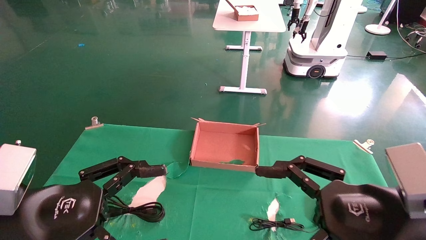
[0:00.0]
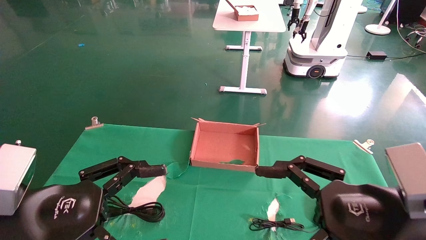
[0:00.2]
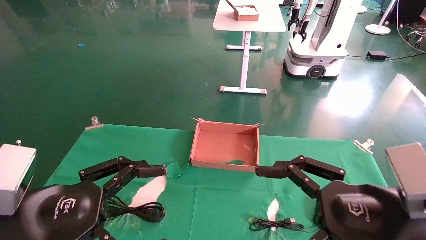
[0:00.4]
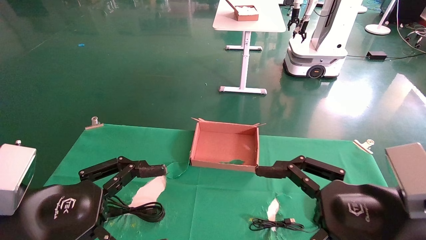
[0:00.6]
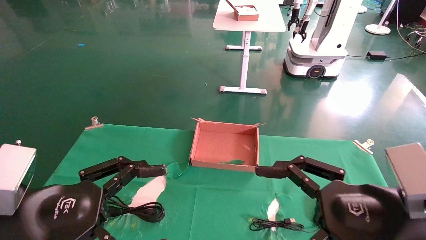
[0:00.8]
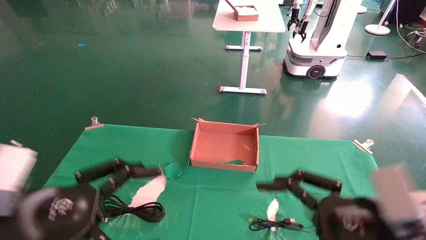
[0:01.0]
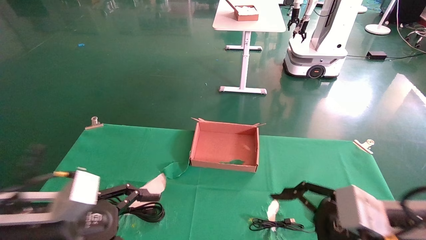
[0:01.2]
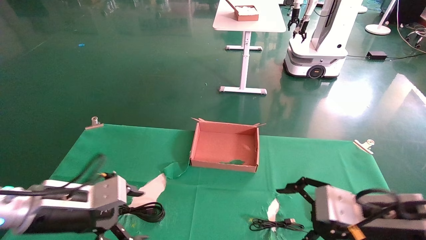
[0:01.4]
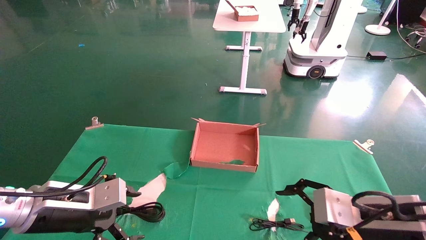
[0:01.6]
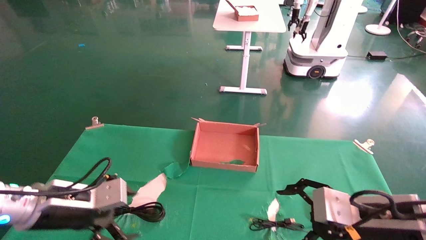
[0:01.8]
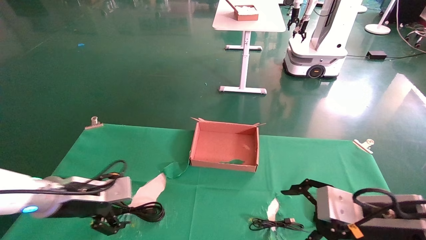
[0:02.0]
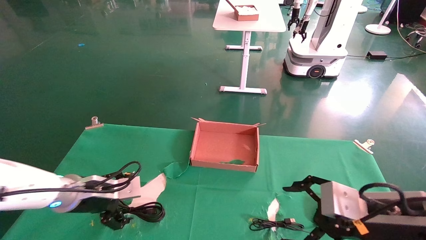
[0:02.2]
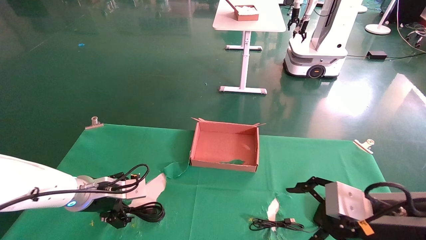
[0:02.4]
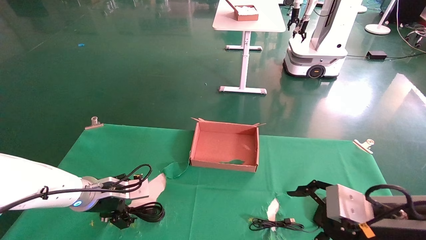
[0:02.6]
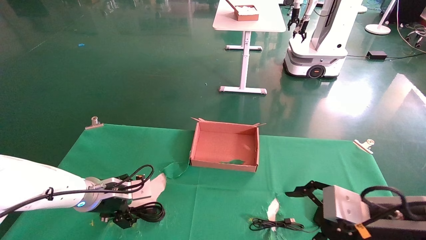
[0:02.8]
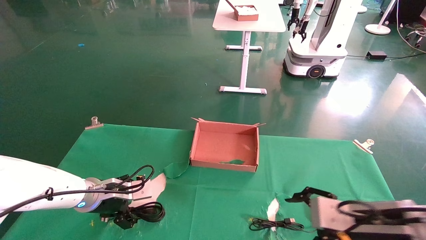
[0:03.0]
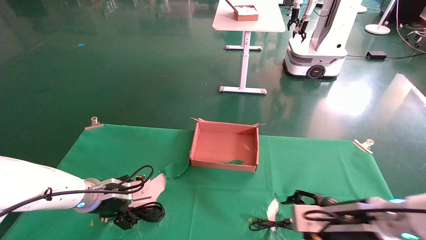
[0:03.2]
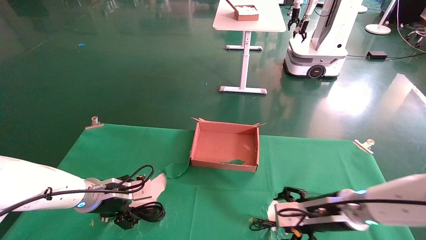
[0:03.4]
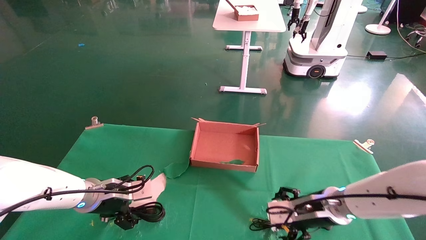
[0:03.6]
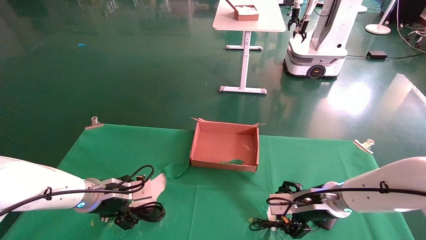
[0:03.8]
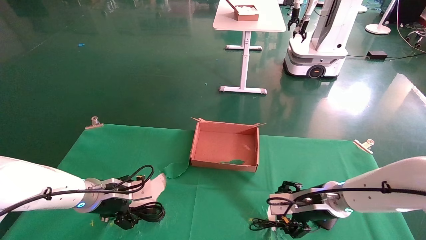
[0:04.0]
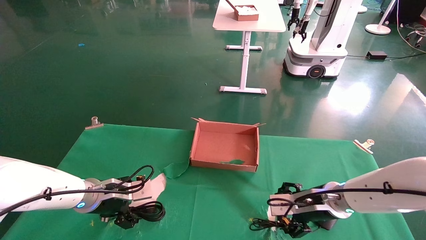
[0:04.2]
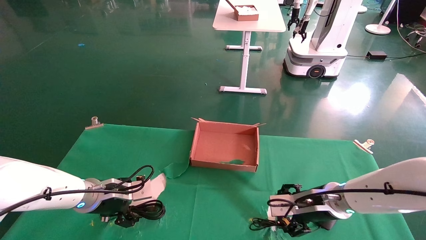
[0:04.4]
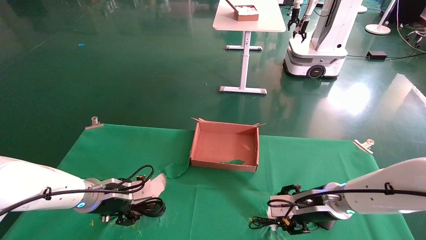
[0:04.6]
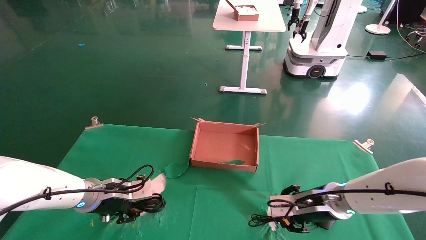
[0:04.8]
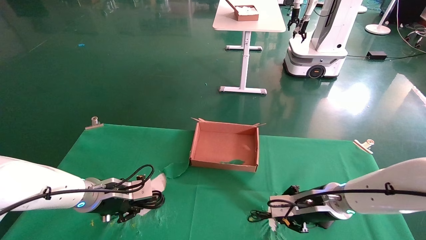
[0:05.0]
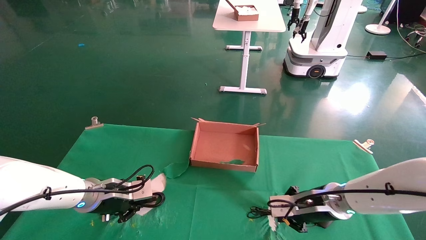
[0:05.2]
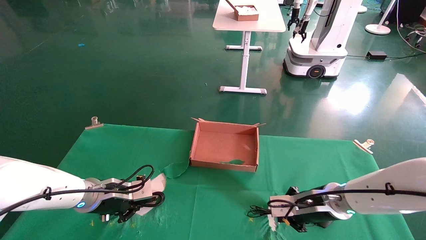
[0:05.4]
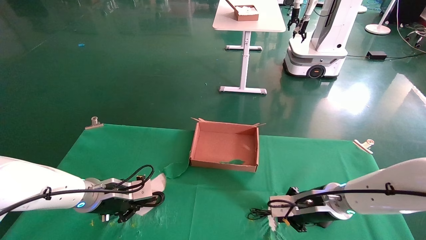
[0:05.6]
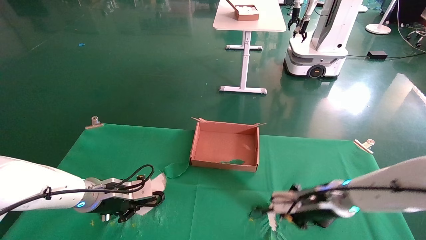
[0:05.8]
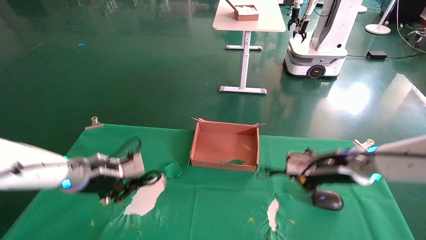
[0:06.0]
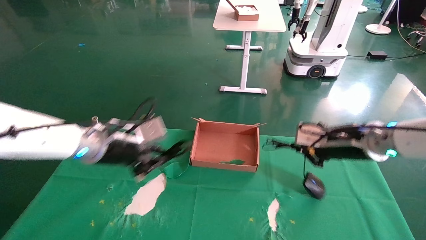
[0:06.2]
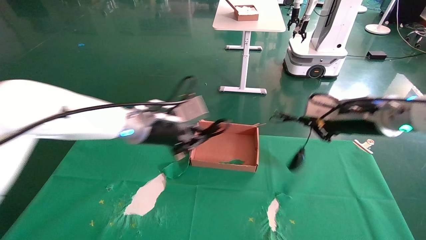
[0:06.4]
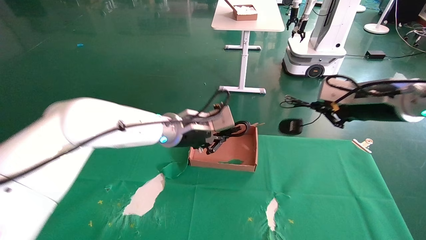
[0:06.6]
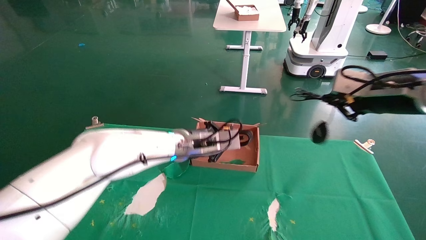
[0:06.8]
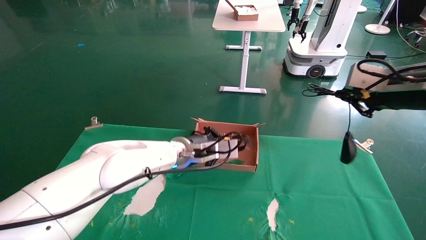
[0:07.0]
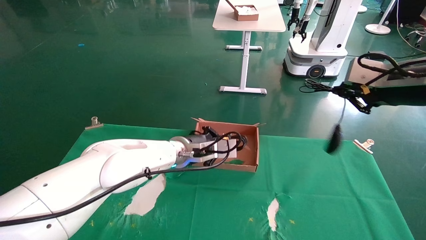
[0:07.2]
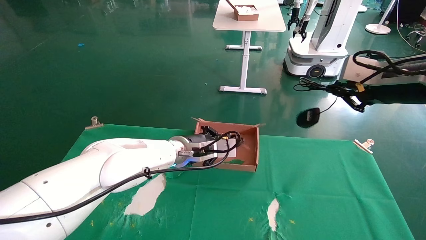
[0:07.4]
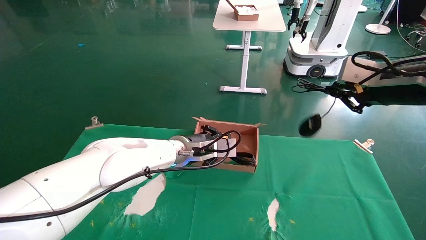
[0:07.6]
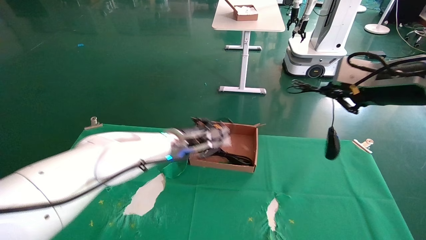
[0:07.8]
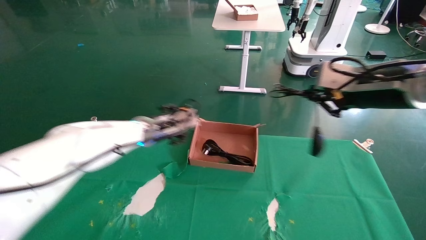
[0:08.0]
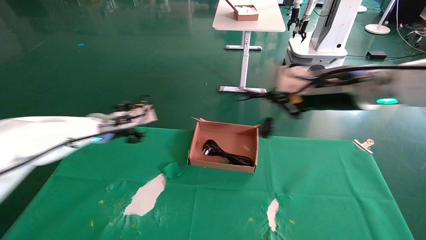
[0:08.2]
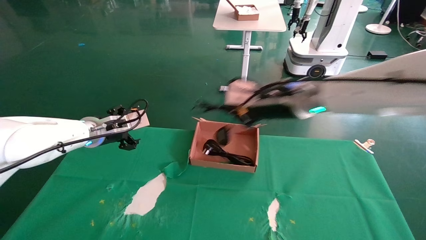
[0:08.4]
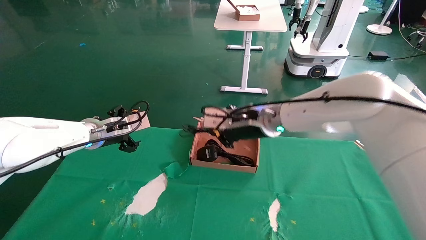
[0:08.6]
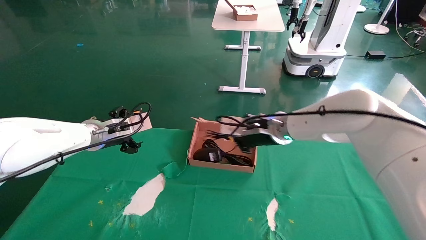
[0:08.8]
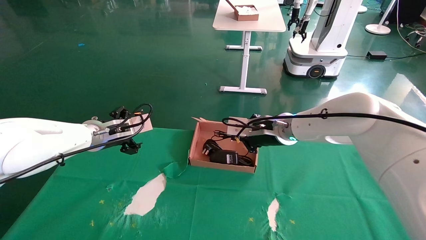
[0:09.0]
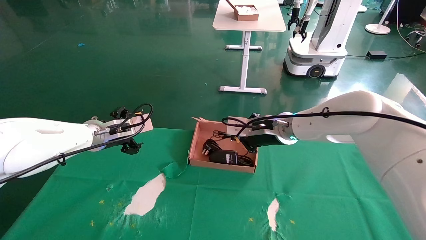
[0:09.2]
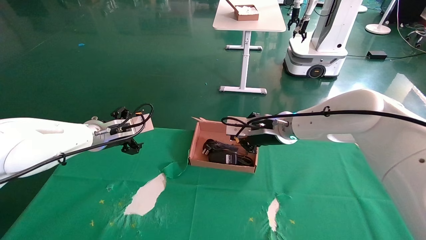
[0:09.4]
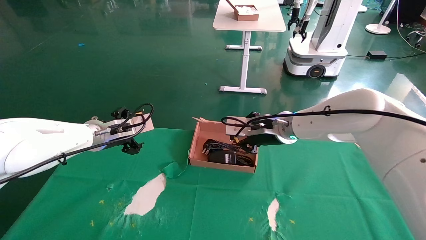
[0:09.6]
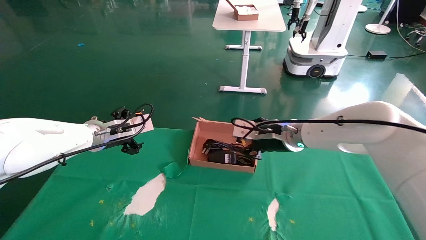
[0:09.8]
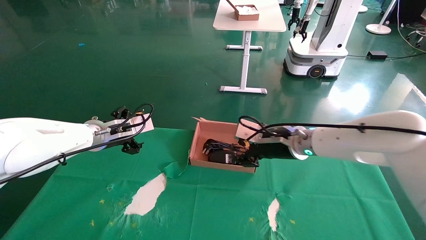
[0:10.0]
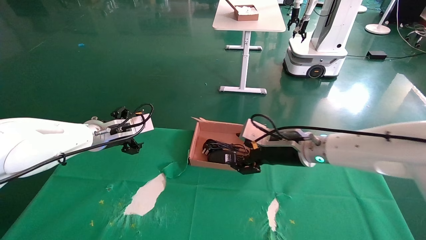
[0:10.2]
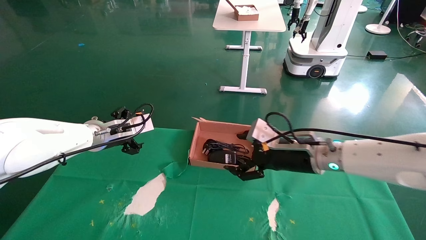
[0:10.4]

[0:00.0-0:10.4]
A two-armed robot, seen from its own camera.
Step, 0:01.6 to 0:06.0: Grab and lift both the mouse and power cord from the accessory packaging area at the same time.
Step, 0:06.2 to 0:10.0: Place the mouse and power cord into the box.
0:00.0 to 0:01.4: The left gripper is displaced forward and downward by approximately 10 cm. The right gripper shifts approximately 5 cm forward.
0:01.4 to 0:03.0: The left gripper goes about 15 cm forward. Meanwhile the right gripper ends up about 5 cm from where it was.
0:03.0 to 0:04.4: The right gripper heads forward, covering approximately 10 cm.
0:04.4 to 0:06.0: Both grippers move upward, some 10 cm. The right gripper closes its fingers. Meanwhile the left gripper closes its fingers.
0:06.0 to 0:07.4: The right gripper moves upward and to the right, approximately 15 cm. Meanwhile the left gripper moves to the right, about 20 cm.
0:07.4 to 0:09.0: The left gripper is displaced to the left by approximately 20 cm, and opens up. The right gripper shifts about 25 cm to the left, forward and downward.
0:09.0 to 0:10.4: The right gripper is displaced backward by approximately 10 cm, and opens.

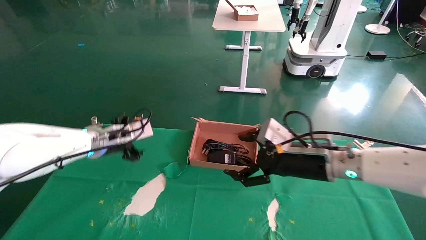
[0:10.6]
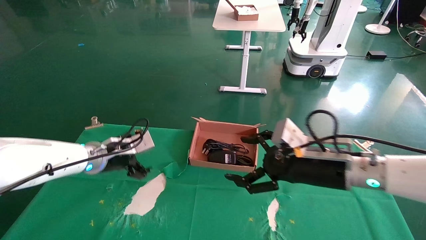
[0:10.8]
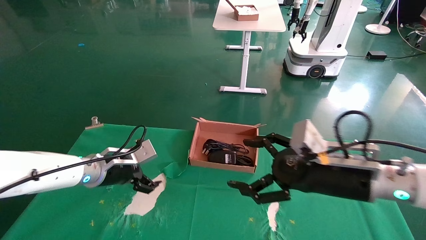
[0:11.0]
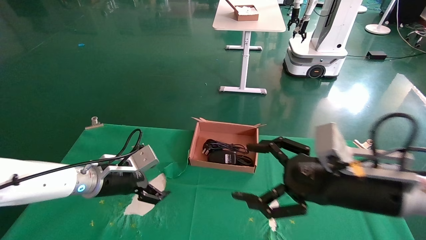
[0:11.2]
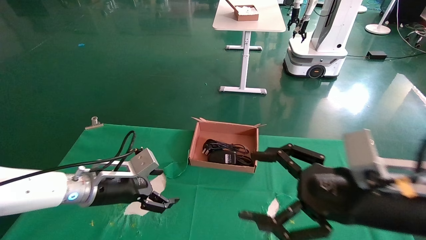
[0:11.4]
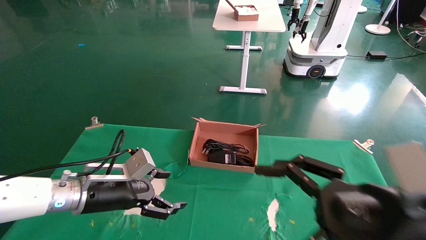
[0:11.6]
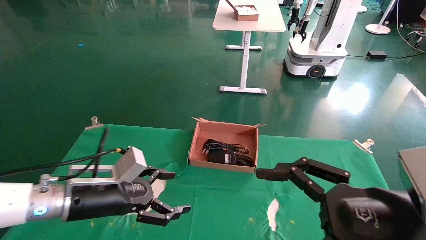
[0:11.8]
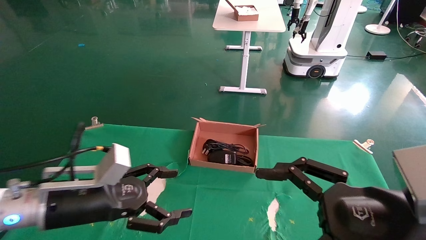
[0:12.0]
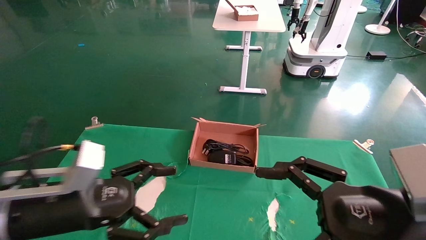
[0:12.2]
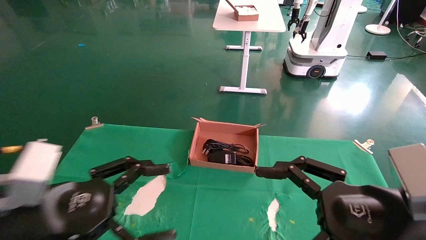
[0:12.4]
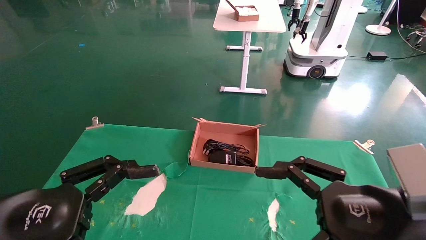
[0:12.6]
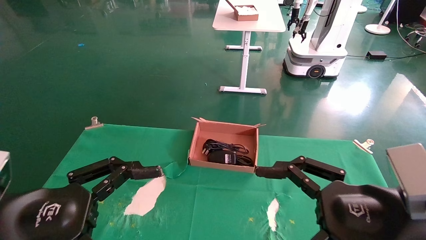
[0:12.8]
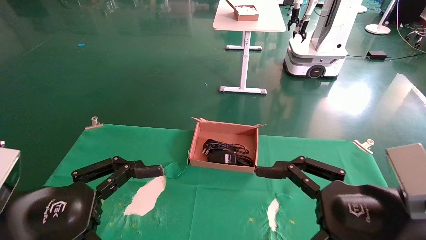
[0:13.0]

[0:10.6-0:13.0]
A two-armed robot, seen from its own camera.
0:10.6 to 0:11.8: The two grippers go roughly 15 cm backward.
0:11.8 to 0:13.0: The left gripper is displaced backward by roughly 15 cm.

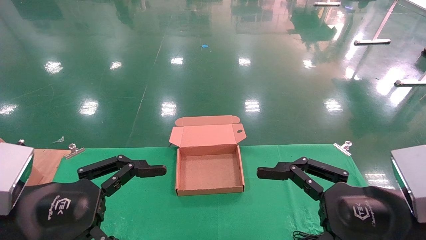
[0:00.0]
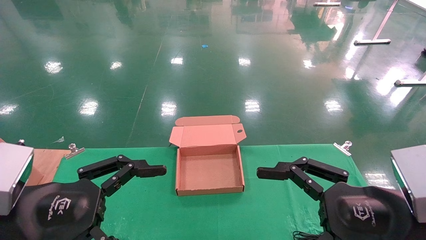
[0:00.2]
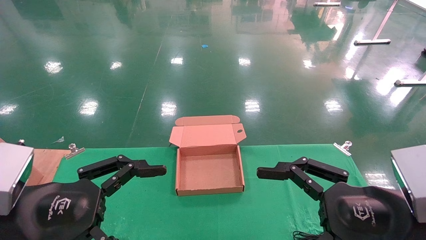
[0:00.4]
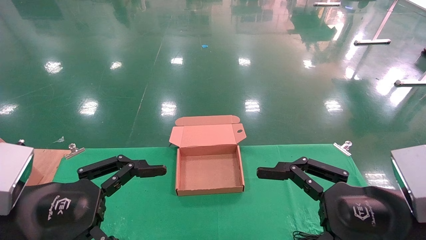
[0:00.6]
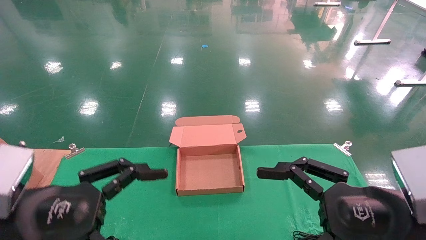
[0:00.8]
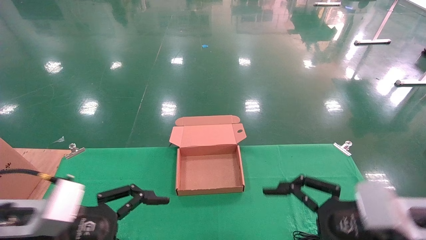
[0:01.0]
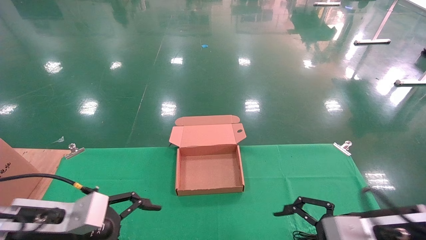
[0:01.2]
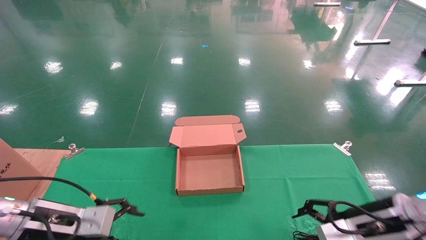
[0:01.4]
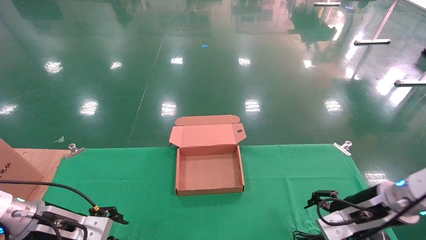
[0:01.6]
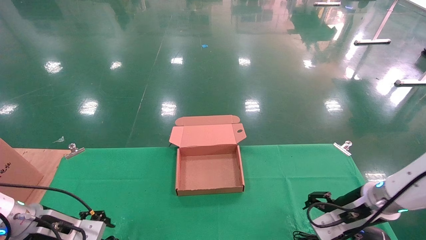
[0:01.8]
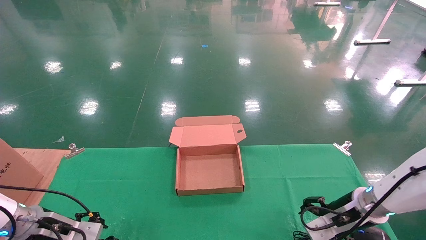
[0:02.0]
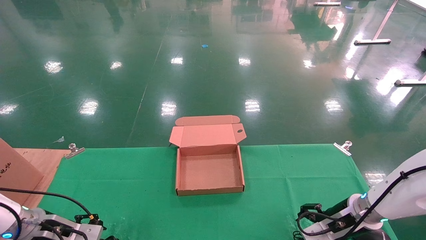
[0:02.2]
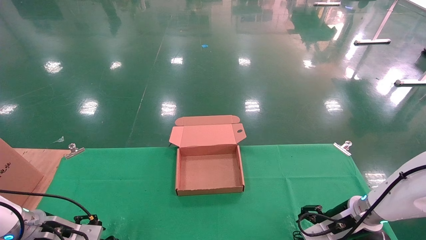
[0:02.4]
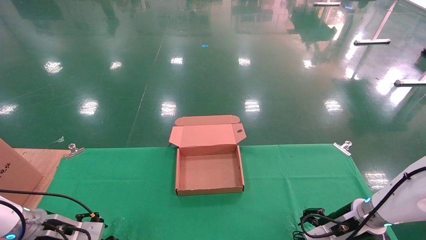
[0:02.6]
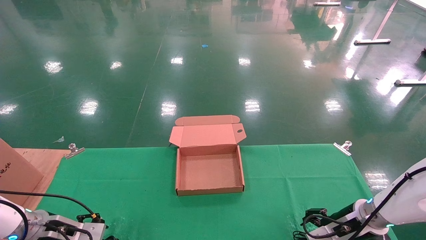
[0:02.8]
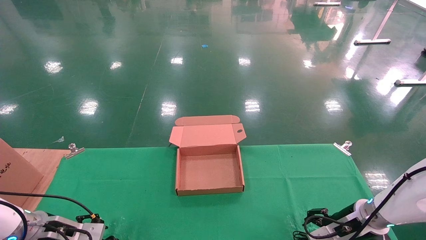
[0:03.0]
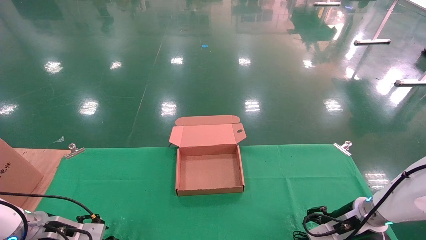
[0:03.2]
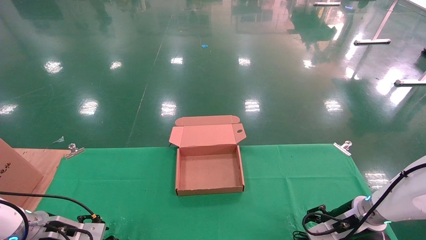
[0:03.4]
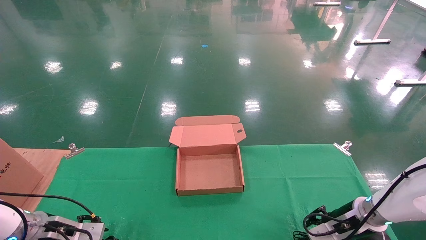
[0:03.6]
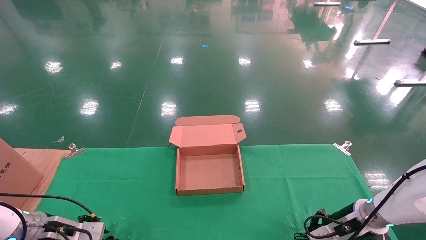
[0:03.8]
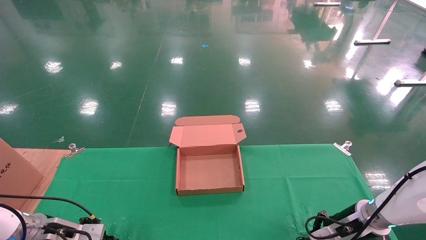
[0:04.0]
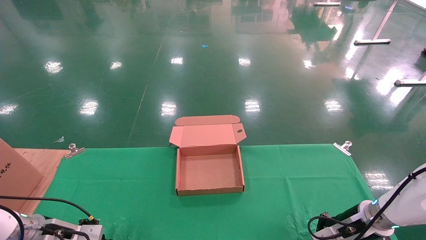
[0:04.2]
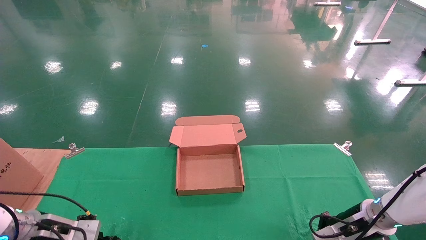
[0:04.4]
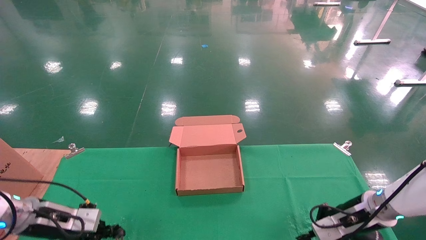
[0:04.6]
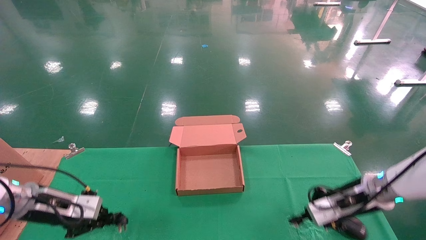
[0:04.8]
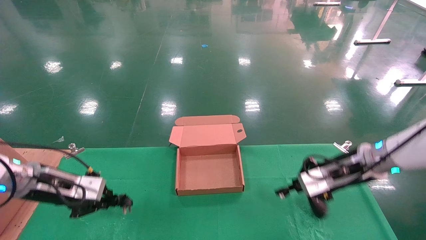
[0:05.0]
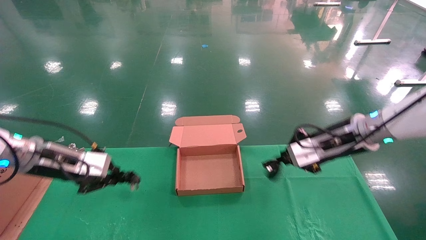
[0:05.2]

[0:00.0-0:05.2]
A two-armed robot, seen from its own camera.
Step, 0:01.4 to 0:05.0: Grab and lift both the mouse and power cord from the accessory packaging area at the same time.
0:00.0 to 0:01.8: The right gripper heads forward and downward, covering roughly 20 cm. The left gripper moves forward, downward and to the left, about 25 cm.
0:01.8 to 0:03.4: The right gripper shifts roughly 5 cm downward; the left gripper ends up roughly 5 cm from where it was.
0:03.4 to 0:05.2: The two grippers go some 20 cm upward. The left gripper closes up. Meanwhile the right gripper closes up.
